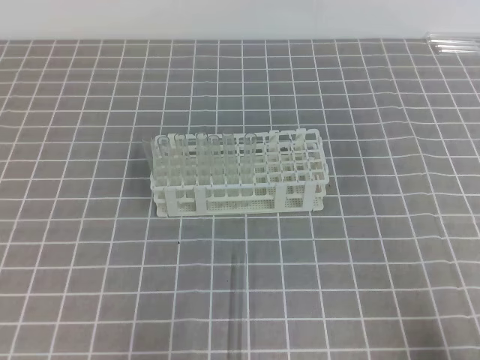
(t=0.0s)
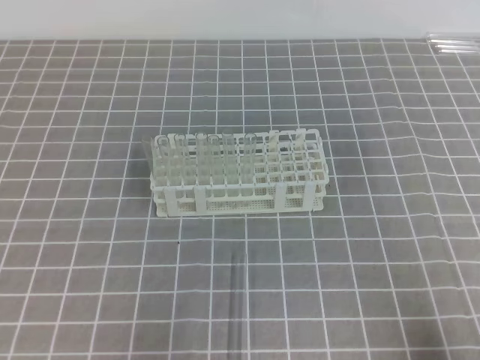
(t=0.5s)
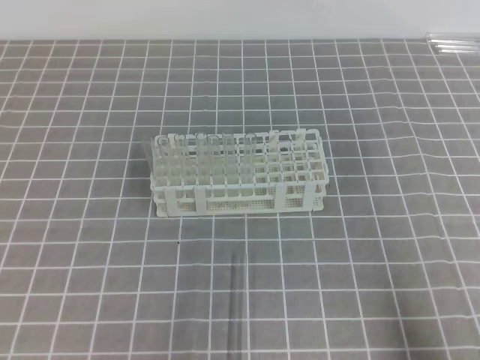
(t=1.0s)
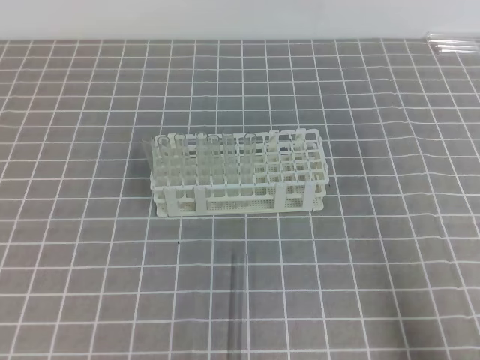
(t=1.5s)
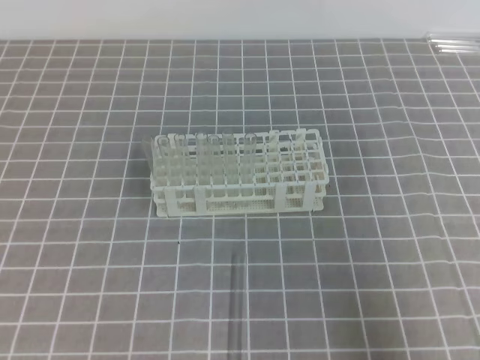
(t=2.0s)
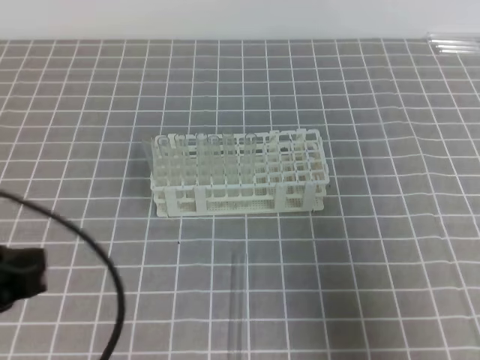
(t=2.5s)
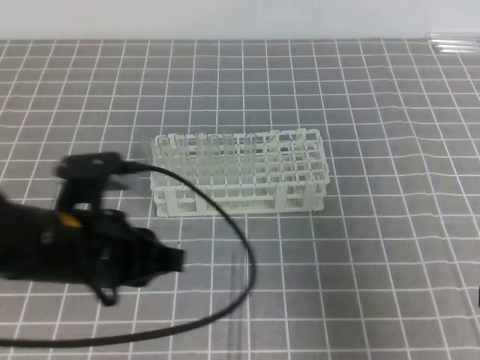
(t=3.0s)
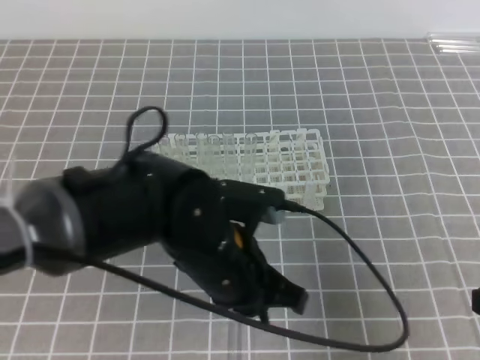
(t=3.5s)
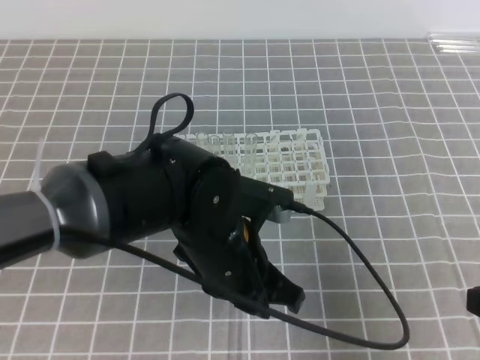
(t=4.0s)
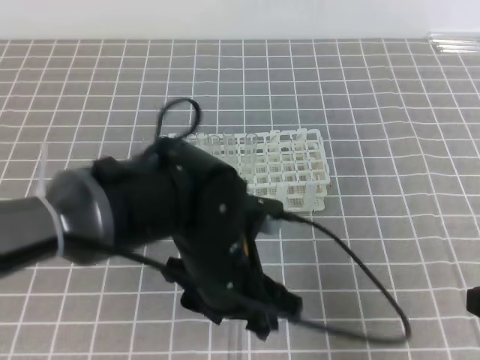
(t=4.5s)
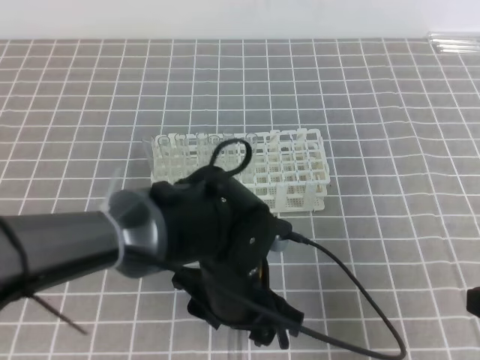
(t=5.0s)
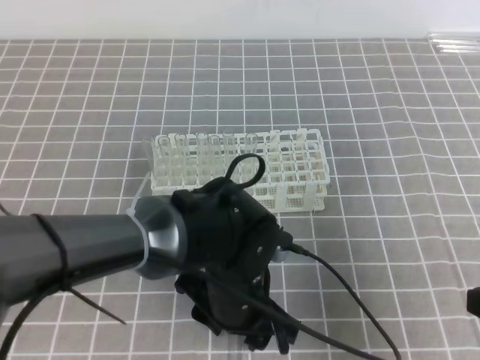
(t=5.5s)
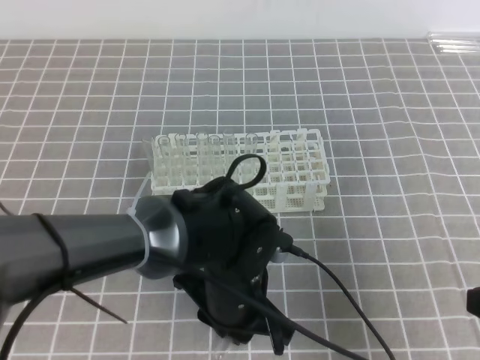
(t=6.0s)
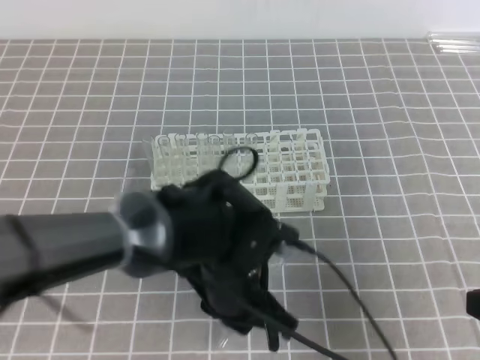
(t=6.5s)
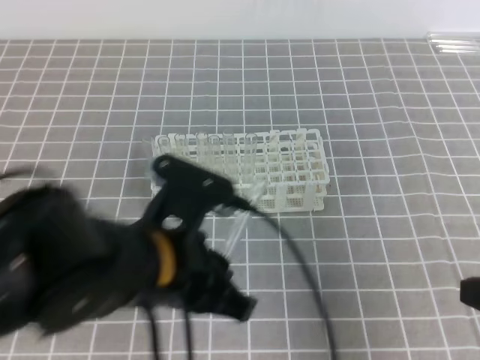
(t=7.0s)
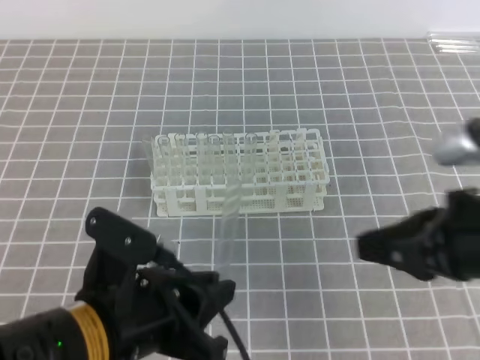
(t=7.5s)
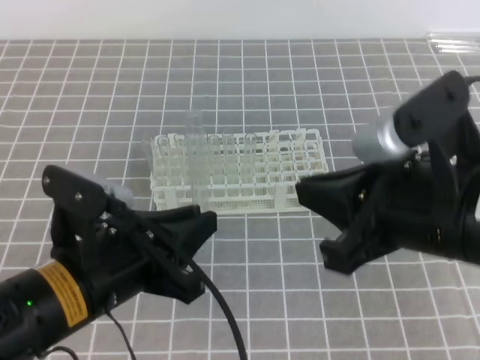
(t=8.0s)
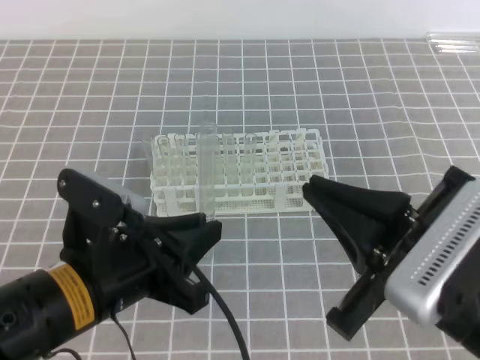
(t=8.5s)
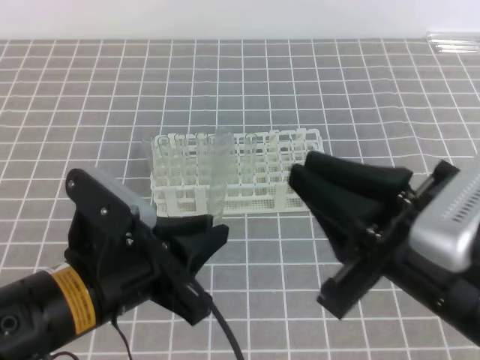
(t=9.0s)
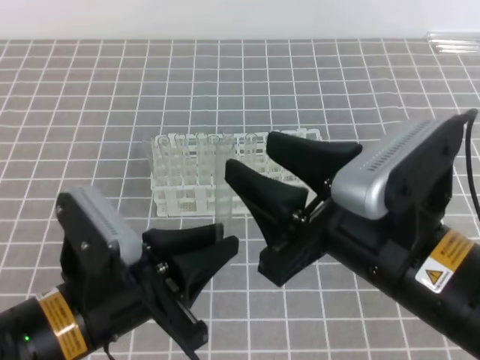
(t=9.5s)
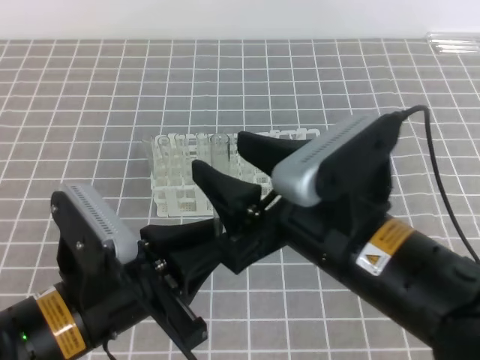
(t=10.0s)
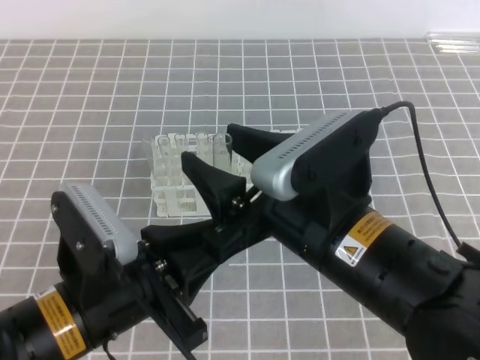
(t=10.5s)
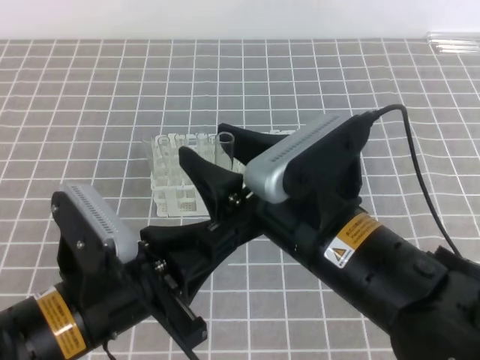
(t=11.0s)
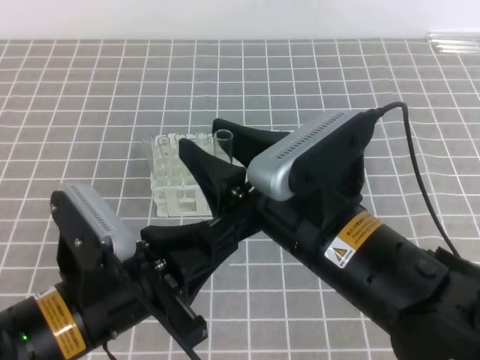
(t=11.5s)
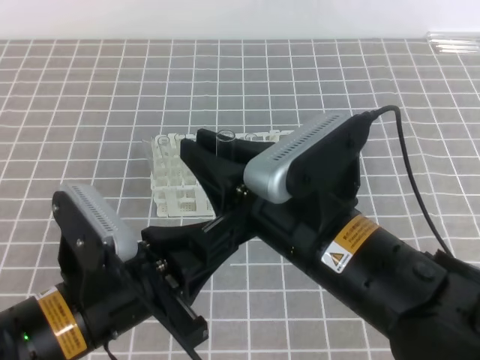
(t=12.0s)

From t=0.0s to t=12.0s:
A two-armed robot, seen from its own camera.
From t=0.0s to t=2.0s: The two grippers go approximately 5 cm upward.
From t=2.0s to t=4.0s: The right gripper travels forward by roughly 5 cm. The left gripper goes approximately 30 cm to the right and forward, and opens its fingers.
From t=4.0s to t=6.0s: The left gripper shifts roughly 5 cm downward, and opens, then closes again.
From t=6.0s to t=8.0s: The left gripper is displaced to the left, upward and backward by about 15 cm. Meanwhile the right gripper is displaced to the left and upward by some 15 cm.
From t=8.0s to t=10.0s: The right gripper is displaced to the left by approximately 5 cm, and opens its fingers.
From t=10.0s to t=12.0s: The right gripper closes up.

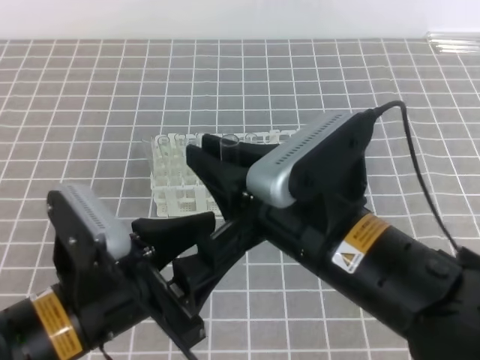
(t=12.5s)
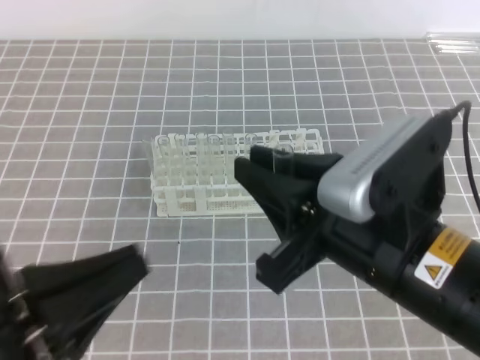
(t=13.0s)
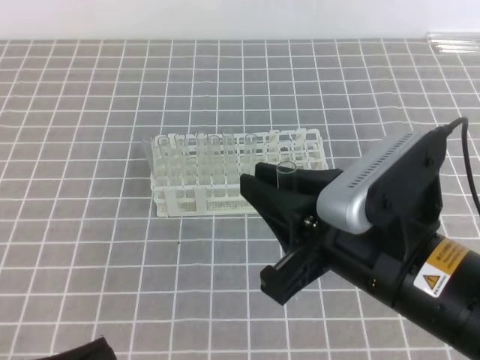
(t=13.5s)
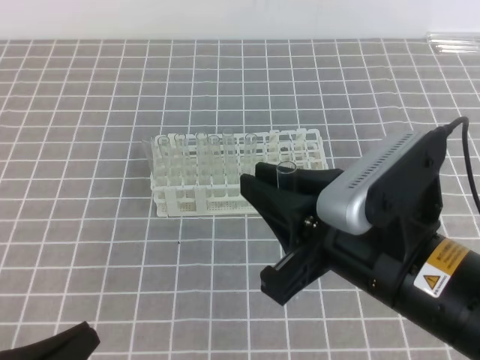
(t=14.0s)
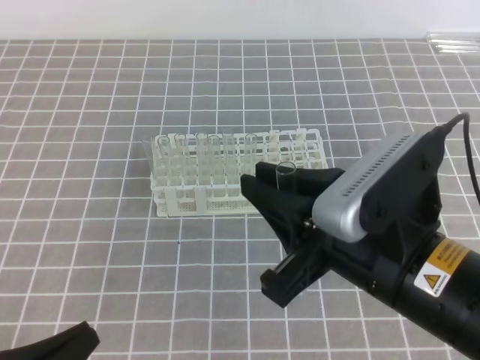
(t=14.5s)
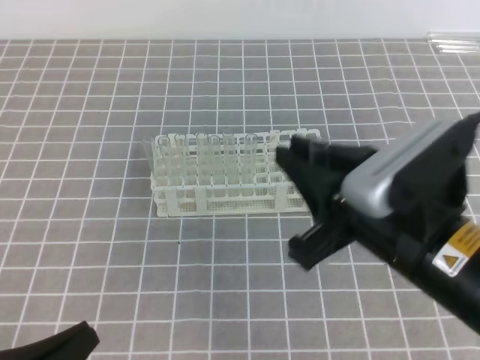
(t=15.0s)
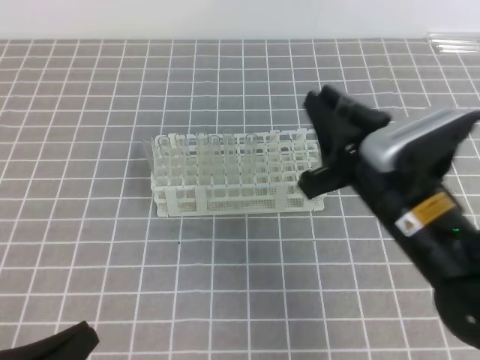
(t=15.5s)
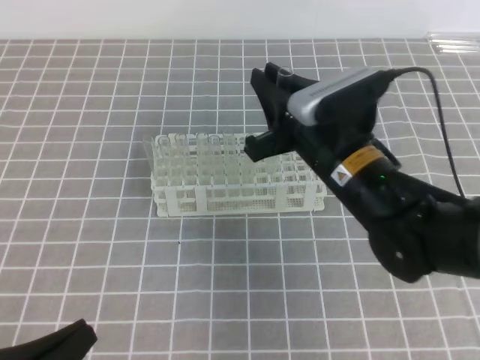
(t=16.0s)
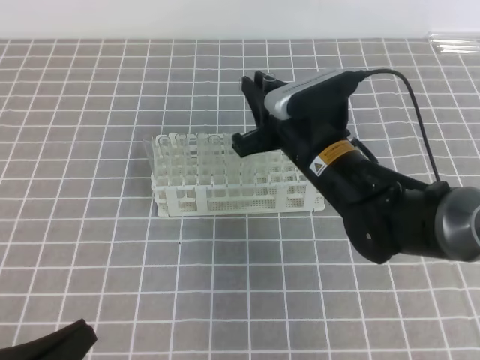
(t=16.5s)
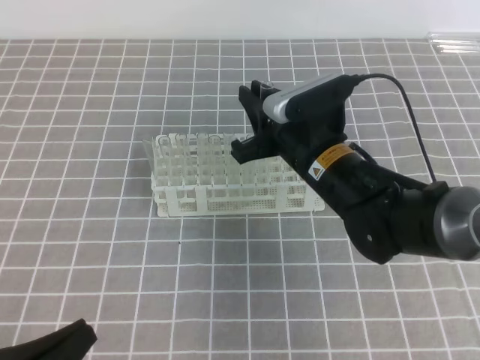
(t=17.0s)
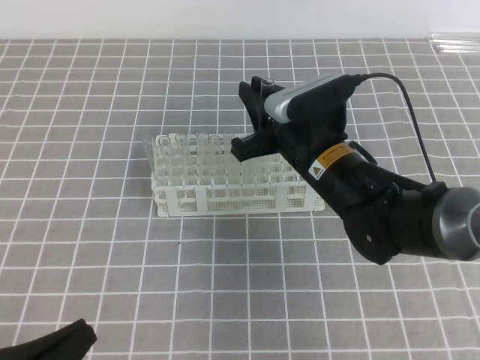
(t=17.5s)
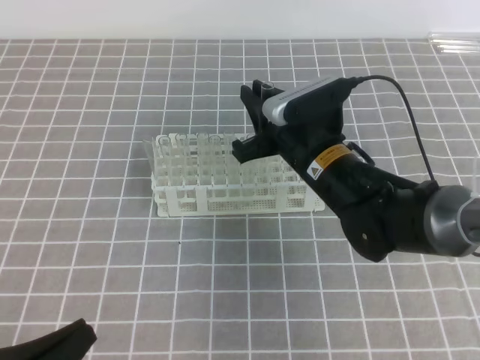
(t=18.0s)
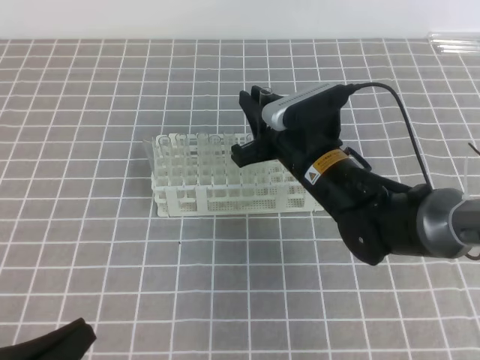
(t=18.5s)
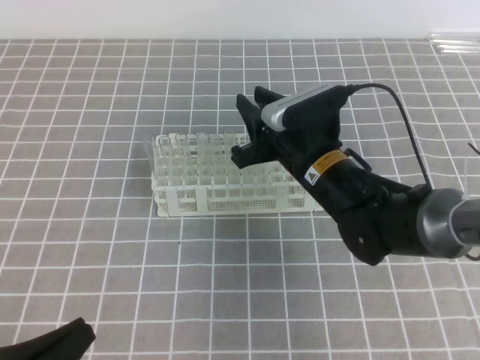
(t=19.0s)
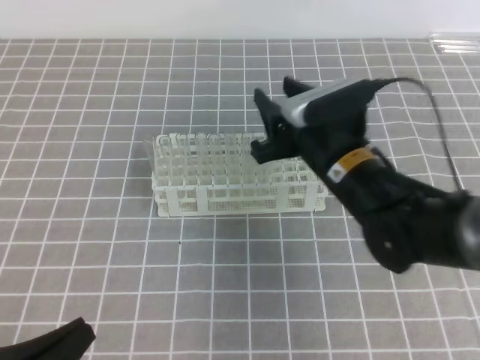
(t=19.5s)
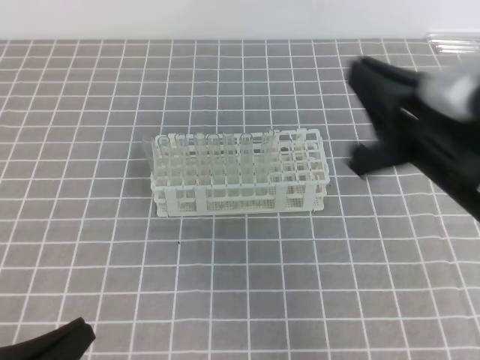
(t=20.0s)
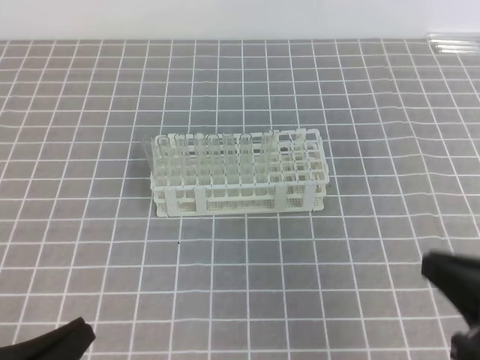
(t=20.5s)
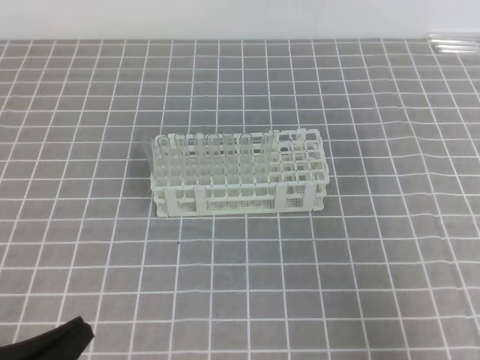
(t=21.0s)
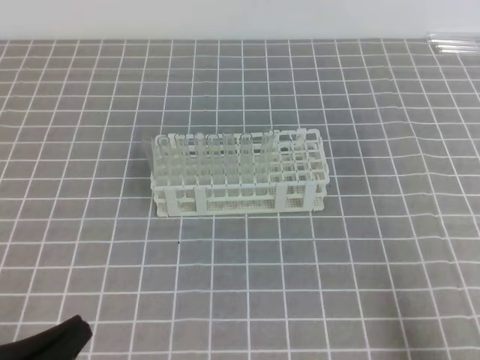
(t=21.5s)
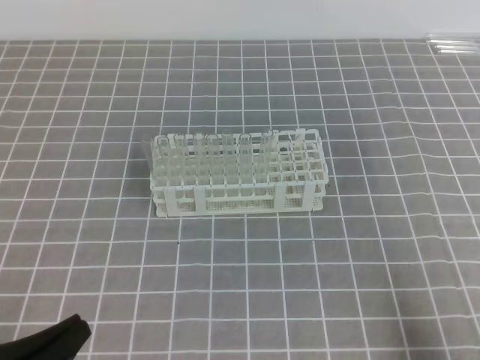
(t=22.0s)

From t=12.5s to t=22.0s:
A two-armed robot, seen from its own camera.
From t=12.5s to t=14.5s: The left gripper goes about 15 cm to the left, backward and downward, and closes its fingers.
From t=14.5s to t=16.5s: The right gripper travels forward and downward by roughly 20 cm.
From t=16.5s to t=18.0s: The grippers move only a little.
From t=18.0s to t=20.0s: The right gripper moves backward, upward and to the right, approximately 20 cm, and opens, then closes again.
From t=20.0s to t=22.0s: The right gripper moves backward, to the right and downward, some 25 cm.
